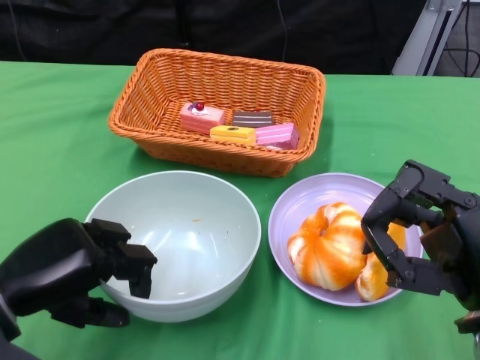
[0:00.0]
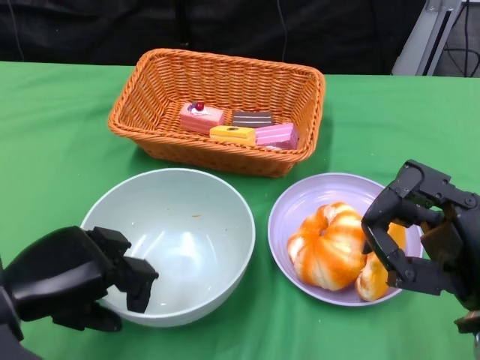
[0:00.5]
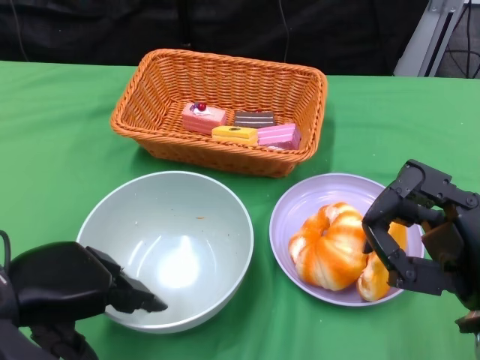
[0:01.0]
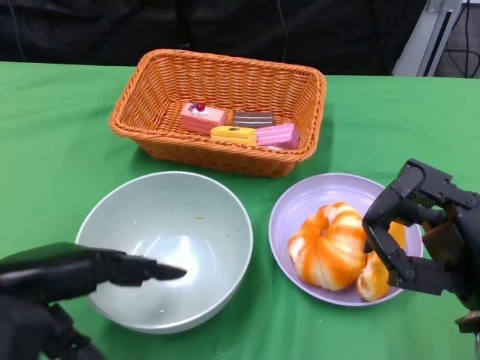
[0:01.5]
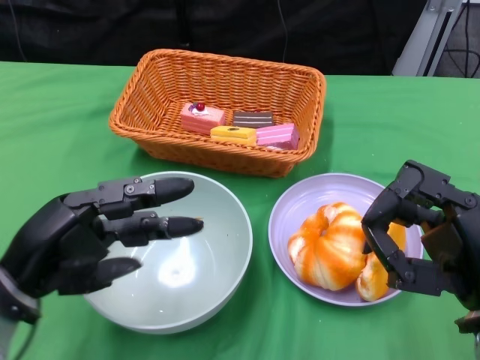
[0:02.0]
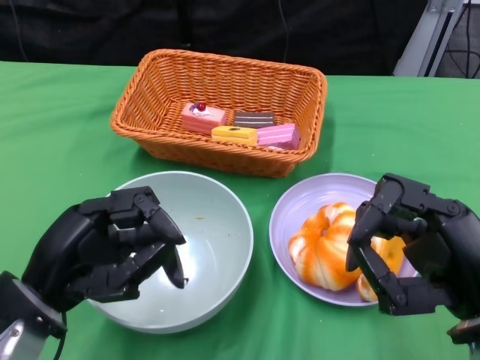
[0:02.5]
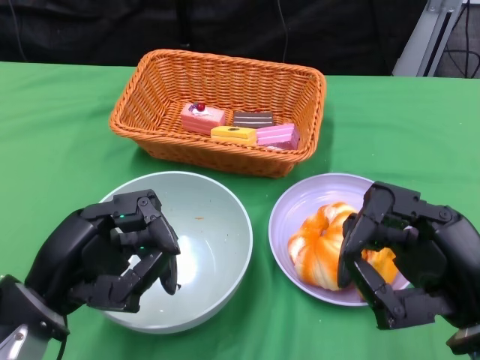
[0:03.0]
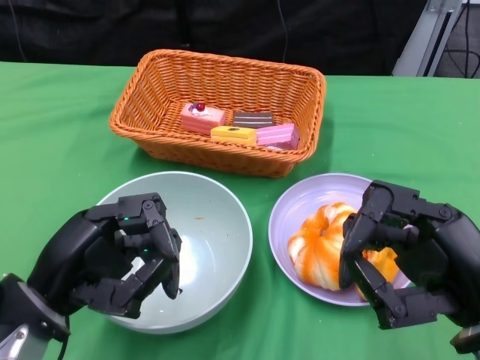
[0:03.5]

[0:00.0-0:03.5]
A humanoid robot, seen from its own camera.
0:02.0 to 0:03.5: The hands make only small movements.

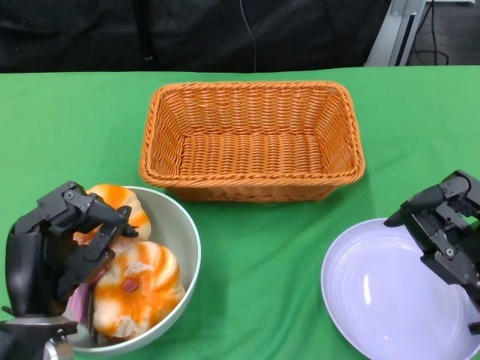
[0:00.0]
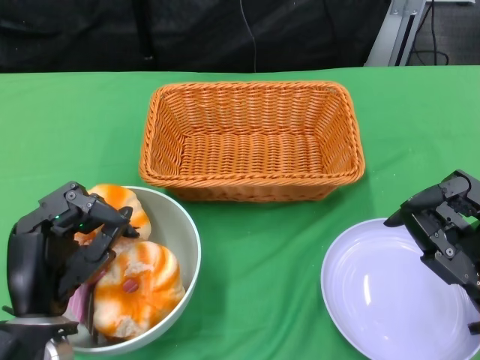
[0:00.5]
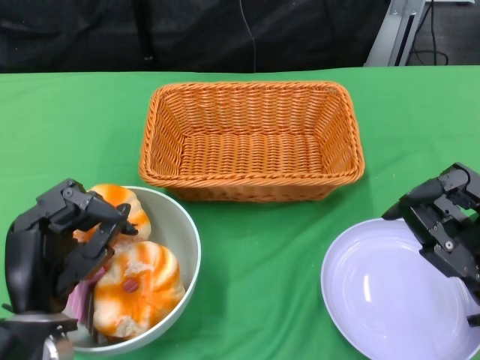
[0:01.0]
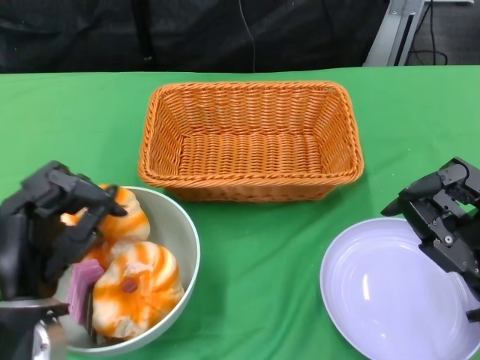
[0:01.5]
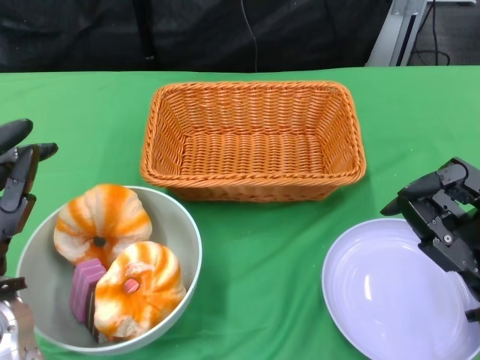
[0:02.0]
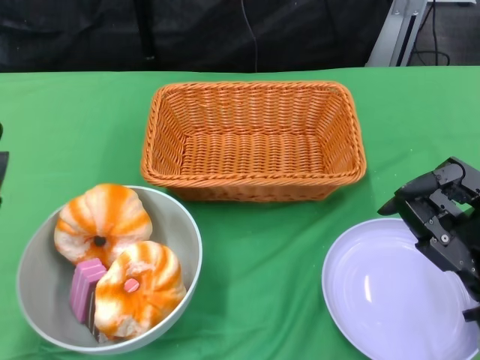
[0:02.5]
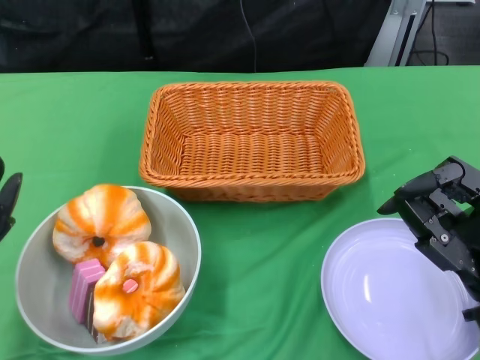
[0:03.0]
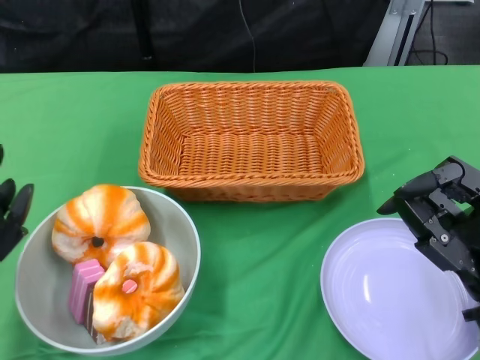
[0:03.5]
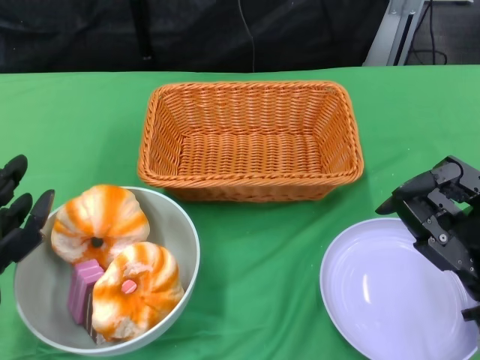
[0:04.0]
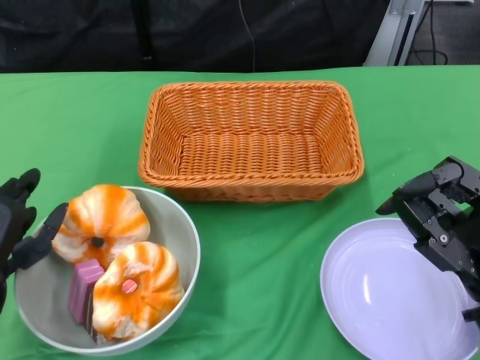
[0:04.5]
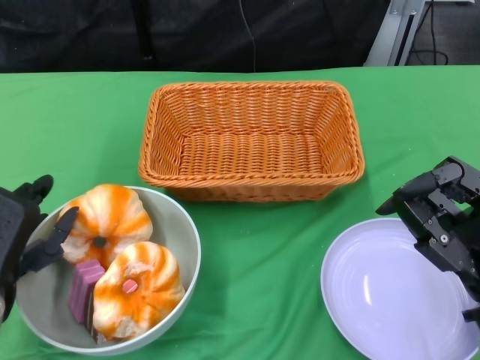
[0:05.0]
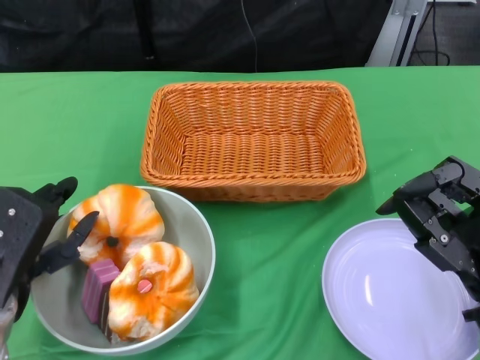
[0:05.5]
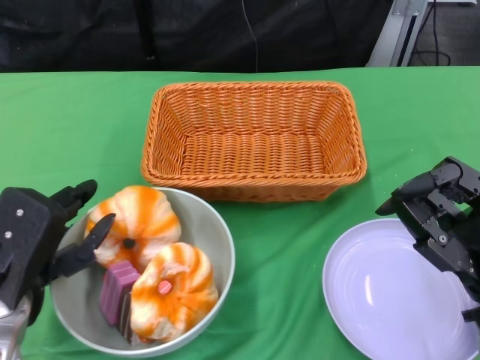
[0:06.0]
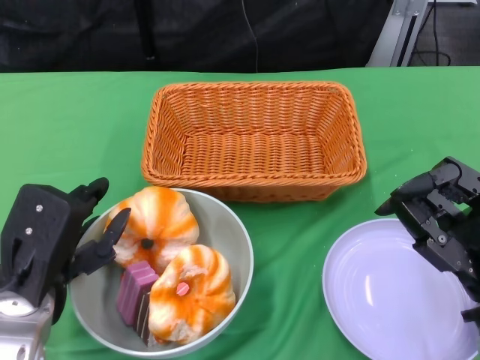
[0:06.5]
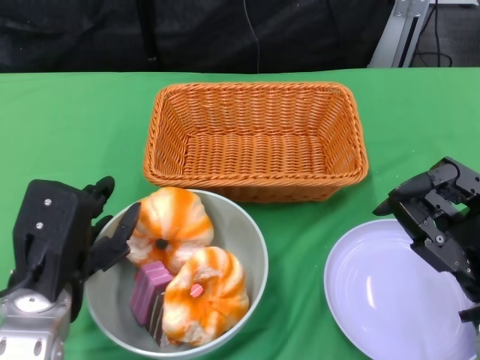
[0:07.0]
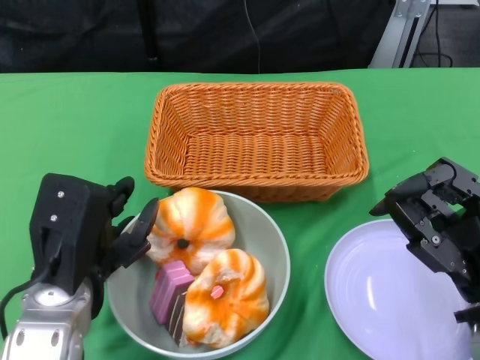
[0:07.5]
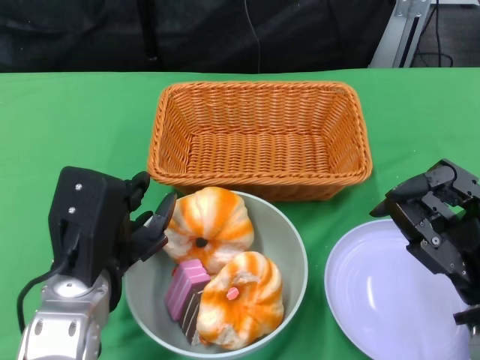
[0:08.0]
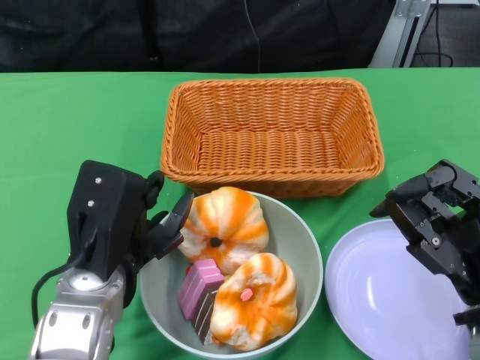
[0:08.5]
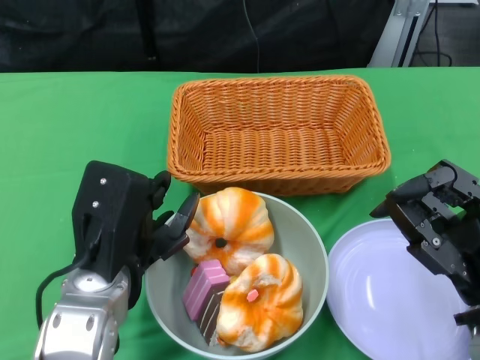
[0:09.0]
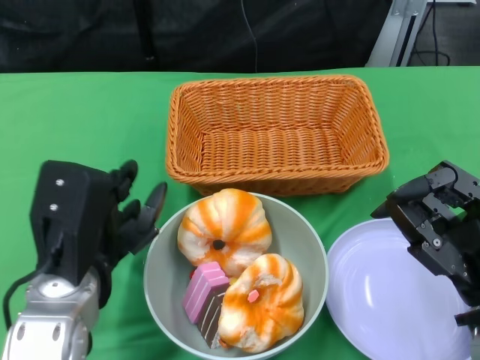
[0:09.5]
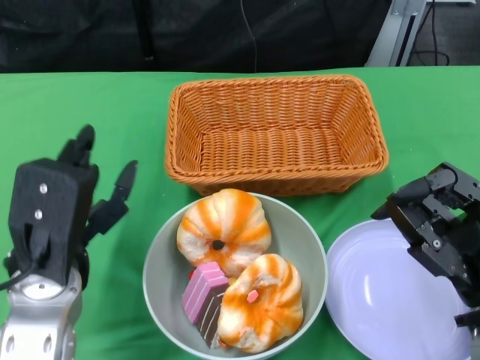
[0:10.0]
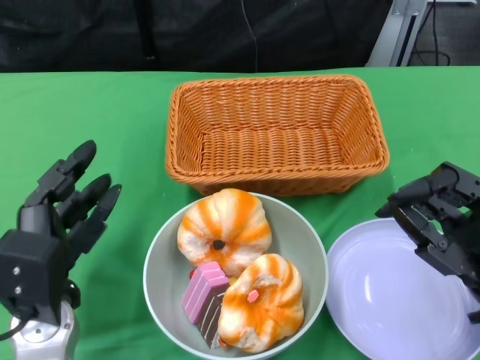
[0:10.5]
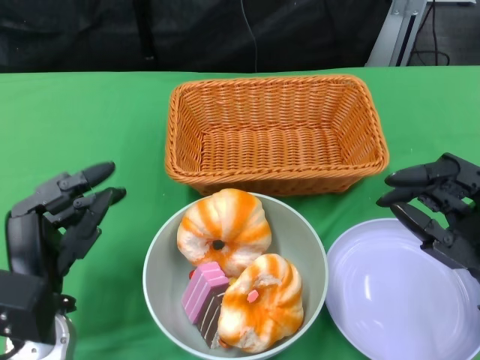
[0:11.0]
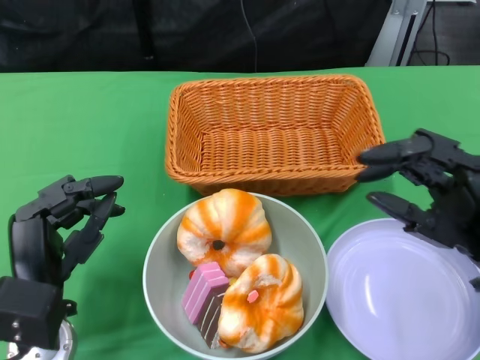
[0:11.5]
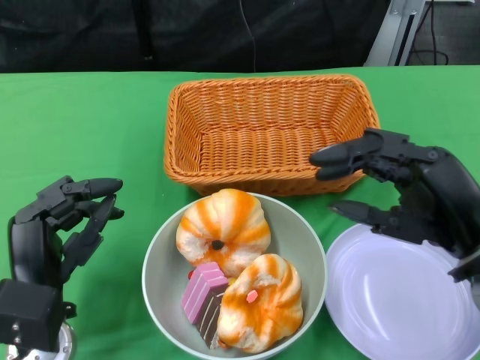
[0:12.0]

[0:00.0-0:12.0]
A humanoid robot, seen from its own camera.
Step, 0:00.0 to 0:10.5: Push the bowl to the center of the table using the left gripper.
0:06.0 to 0:08.0: The left hand is displaced to the right by approximately 5 cm.
0:10.0 to 0:12.0: The right hand heads upward, covering roughly 5 cm. The left hand heads downward, covering some 10 cm.

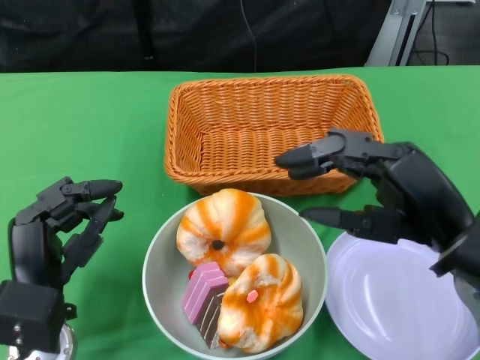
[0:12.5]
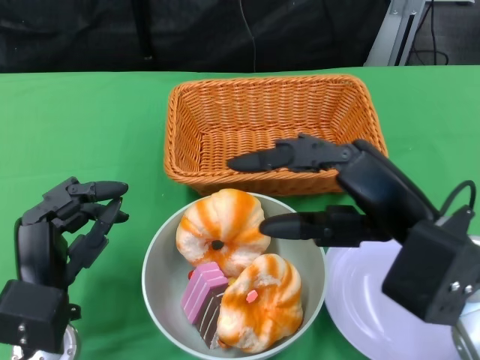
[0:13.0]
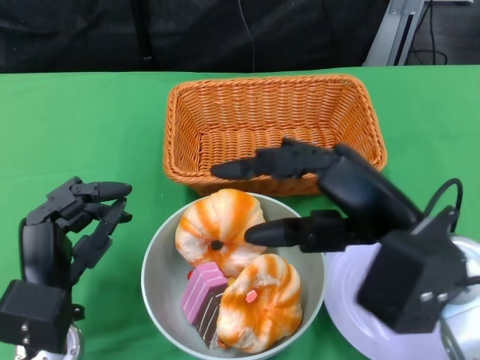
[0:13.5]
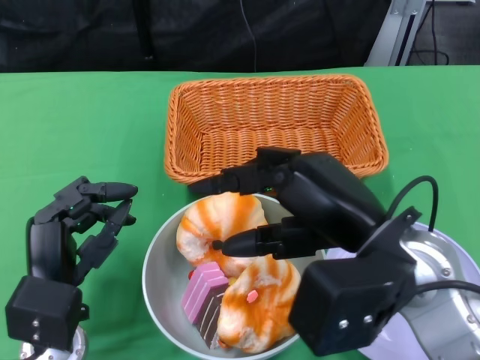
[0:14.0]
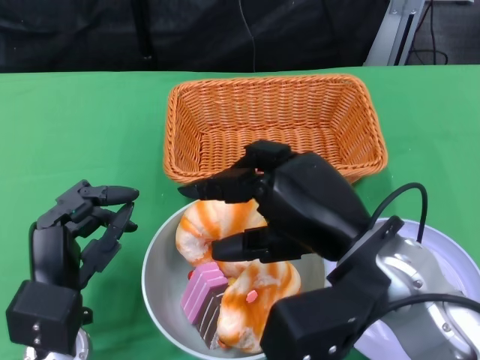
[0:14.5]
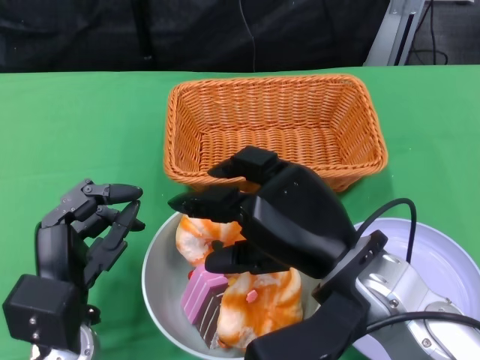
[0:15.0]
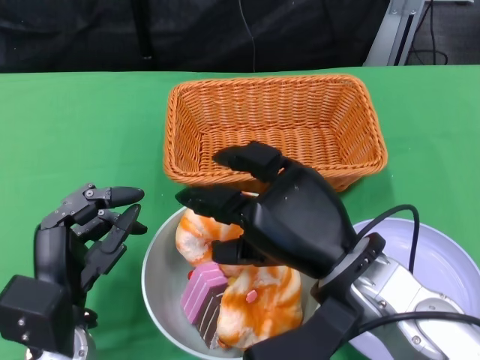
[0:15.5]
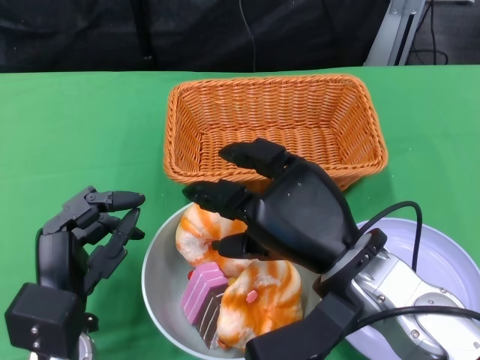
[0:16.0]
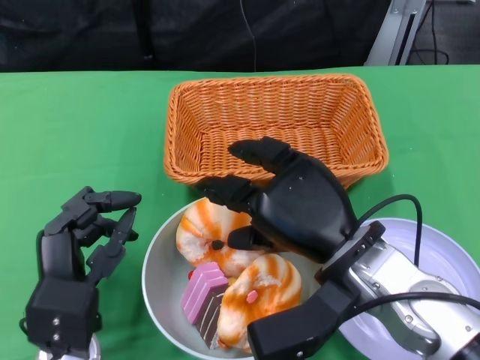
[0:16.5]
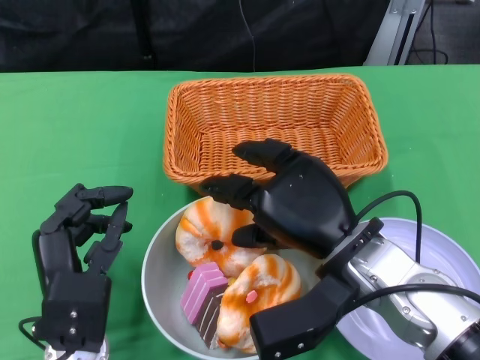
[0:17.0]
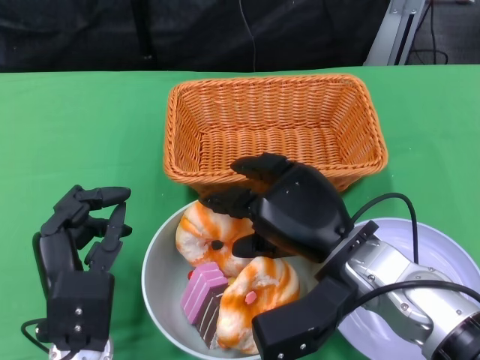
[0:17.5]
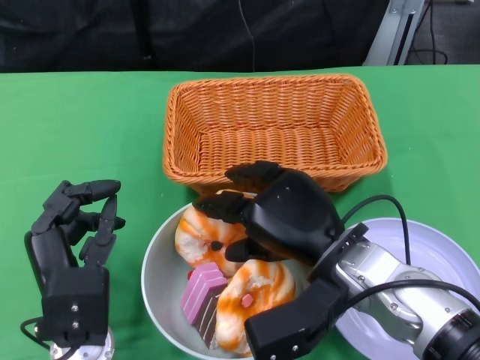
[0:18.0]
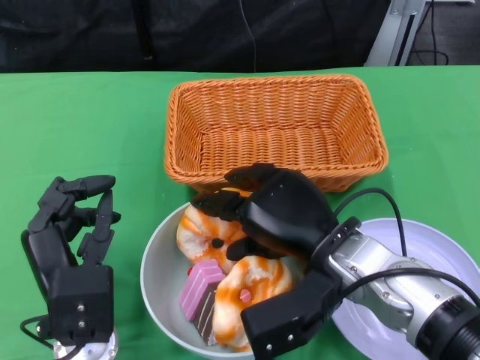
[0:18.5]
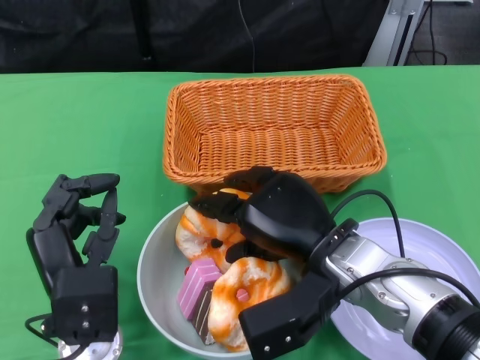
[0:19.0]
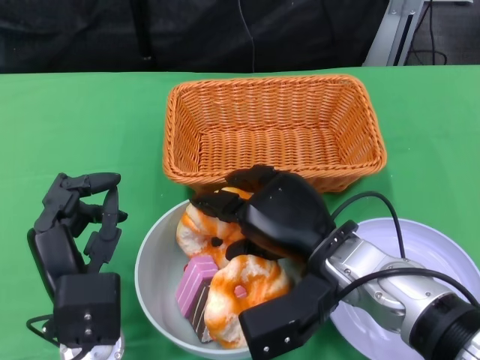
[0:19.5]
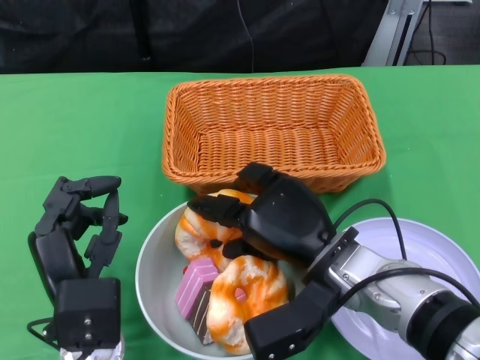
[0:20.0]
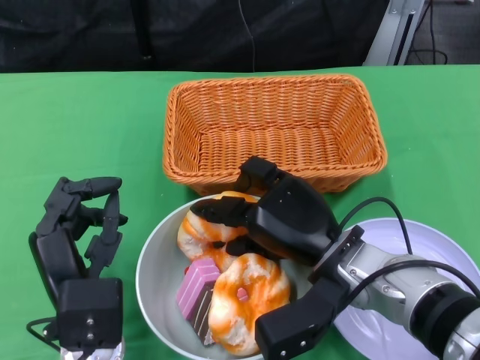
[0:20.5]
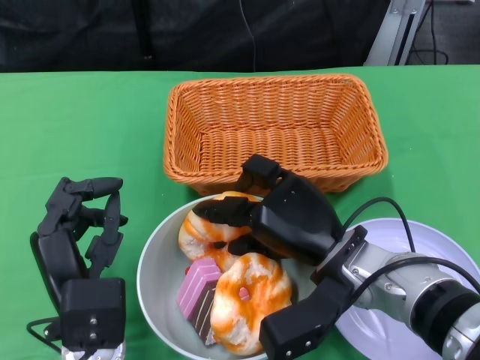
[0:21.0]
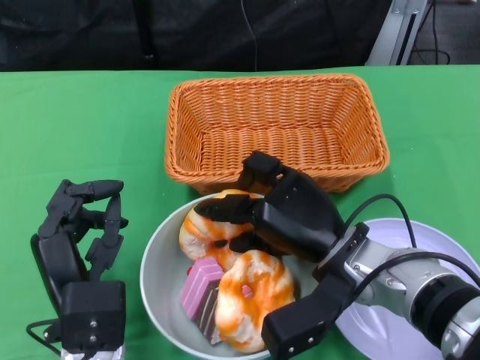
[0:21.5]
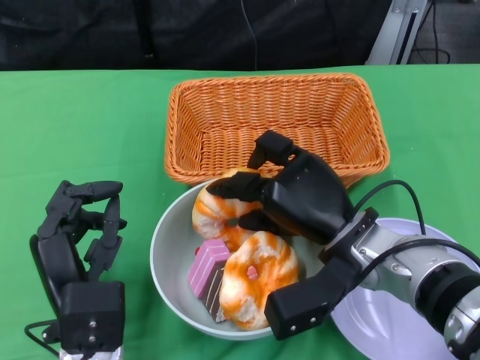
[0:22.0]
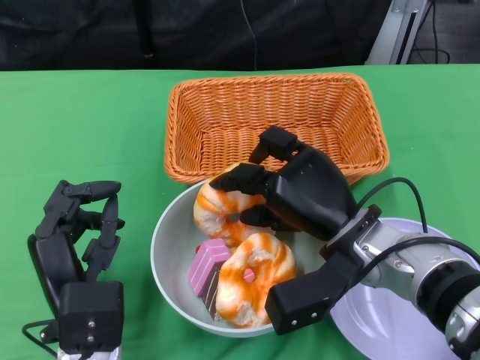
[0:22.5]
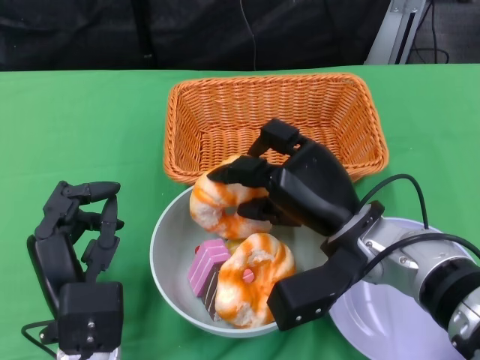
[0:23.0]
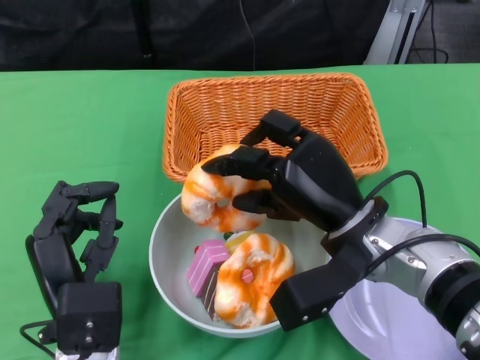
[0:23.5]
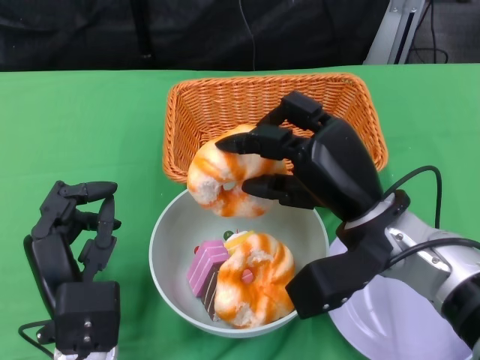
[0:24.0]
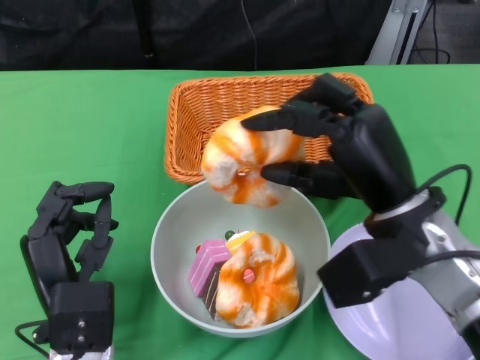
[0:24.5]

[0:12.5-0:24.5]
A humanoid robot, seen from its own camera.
0:12.5 to 0:14.5: The right hand goes about 10 cm to the left.
0:18.5 to 0:20.5: There are only small adjustments of the hands.
0:22.5 to 0:24.5: The right hand heads upward, covering roughly 5 cm.
